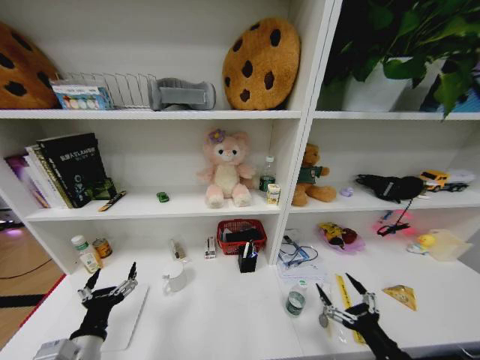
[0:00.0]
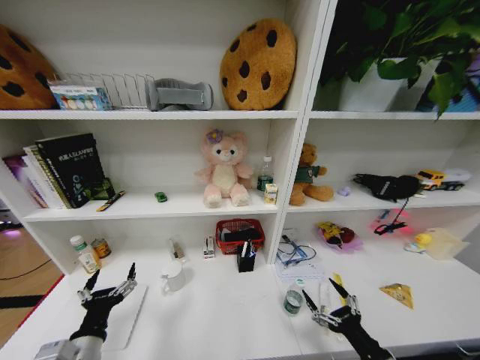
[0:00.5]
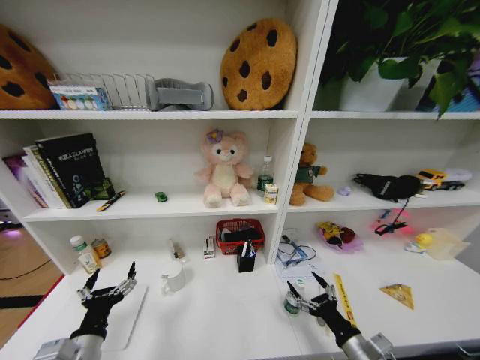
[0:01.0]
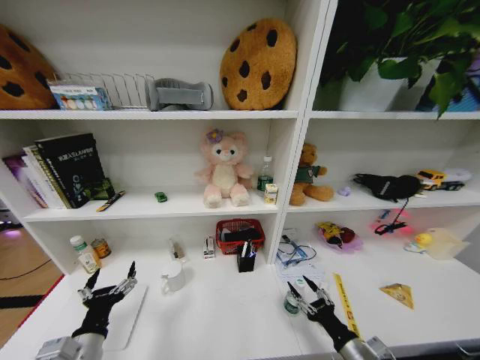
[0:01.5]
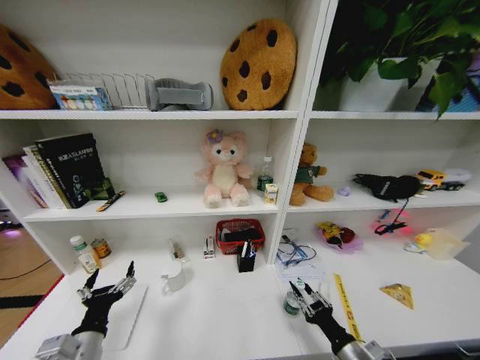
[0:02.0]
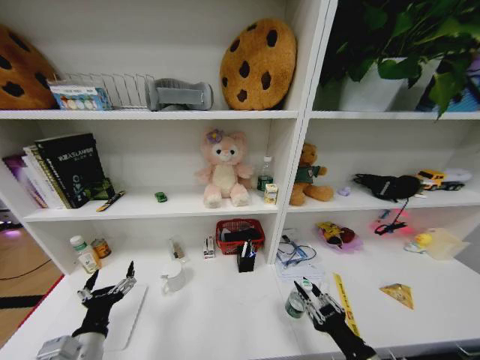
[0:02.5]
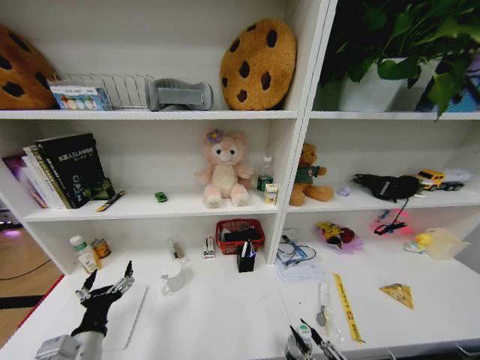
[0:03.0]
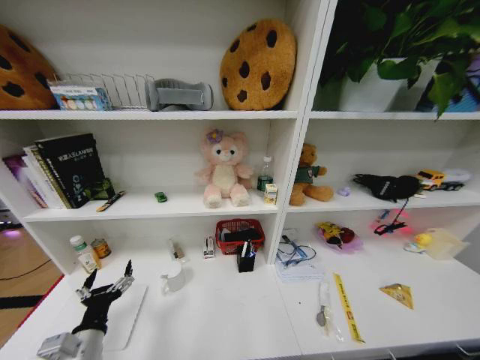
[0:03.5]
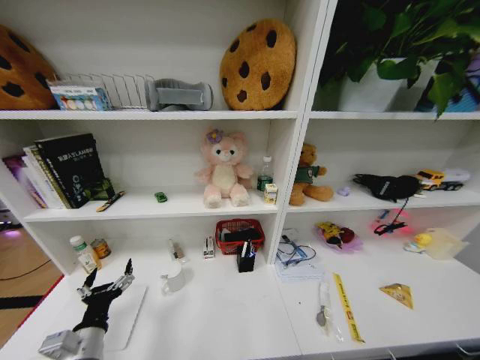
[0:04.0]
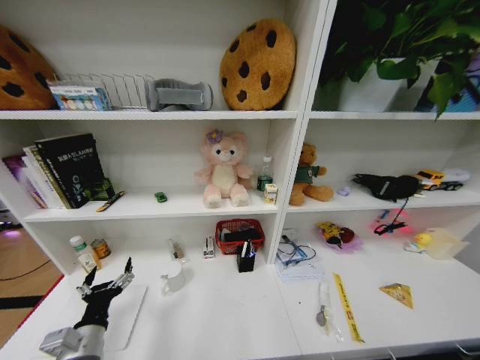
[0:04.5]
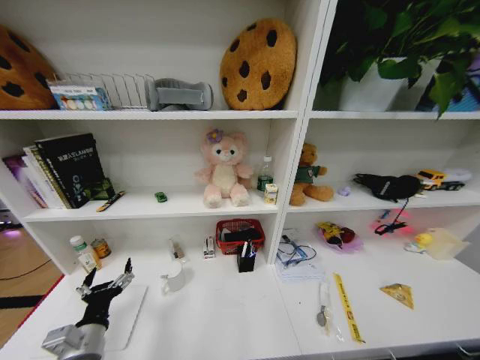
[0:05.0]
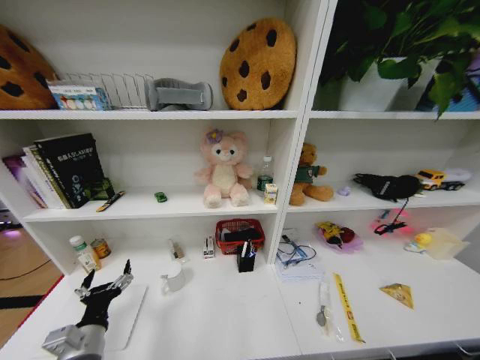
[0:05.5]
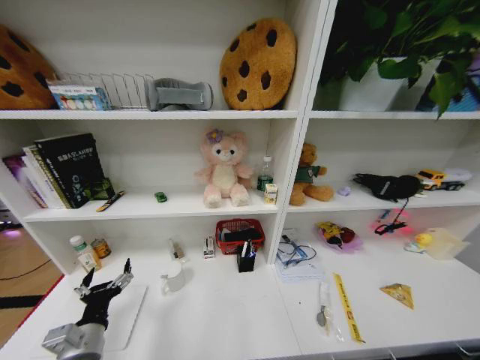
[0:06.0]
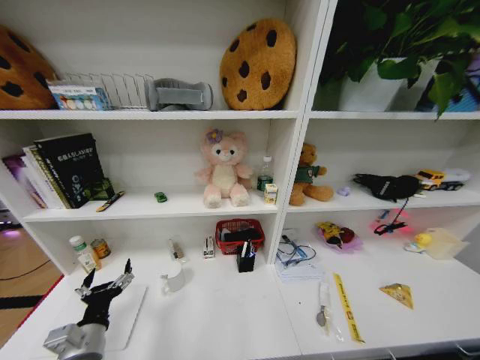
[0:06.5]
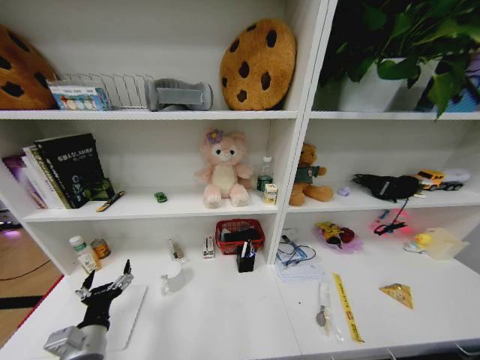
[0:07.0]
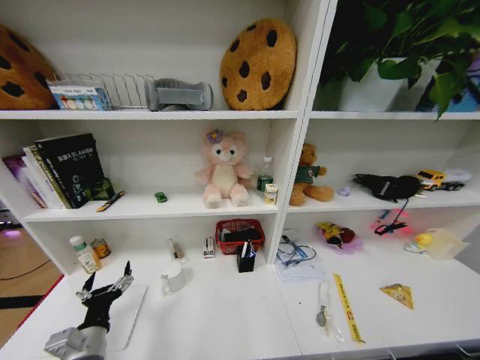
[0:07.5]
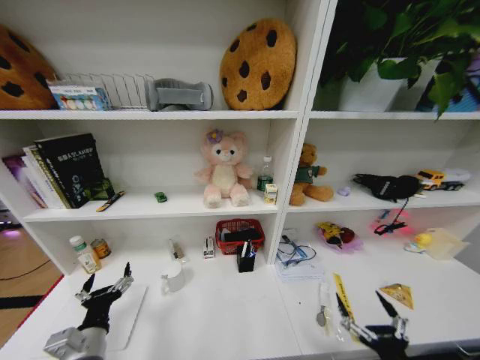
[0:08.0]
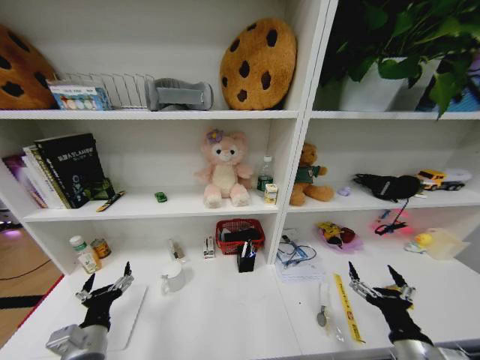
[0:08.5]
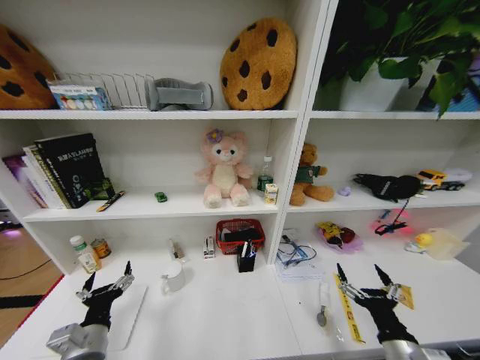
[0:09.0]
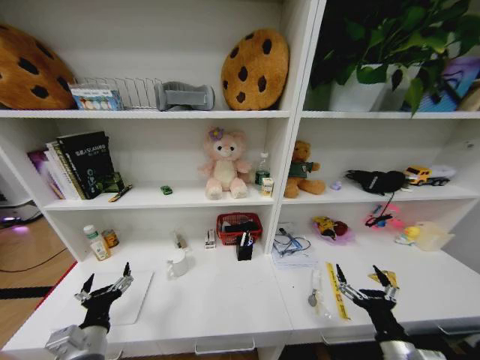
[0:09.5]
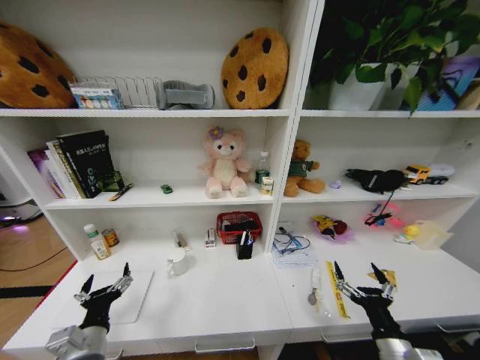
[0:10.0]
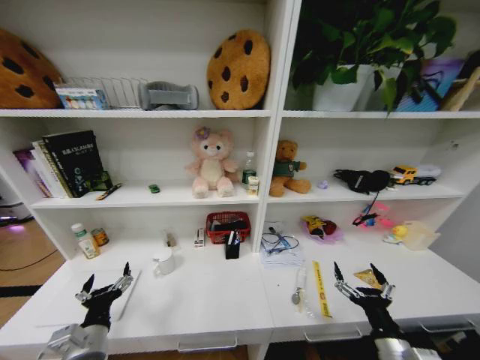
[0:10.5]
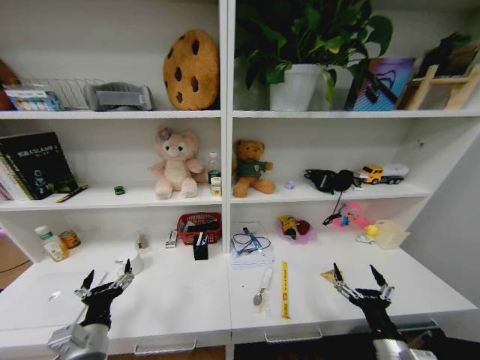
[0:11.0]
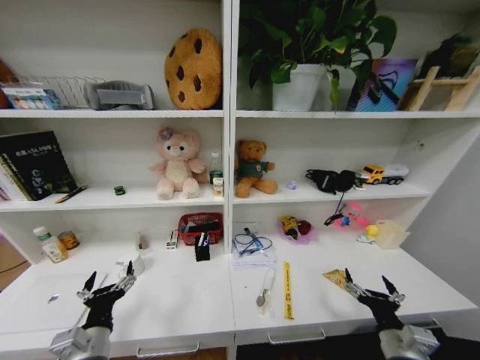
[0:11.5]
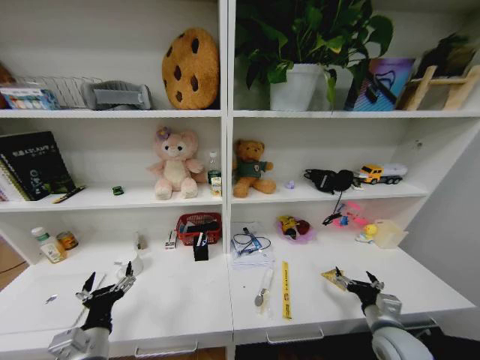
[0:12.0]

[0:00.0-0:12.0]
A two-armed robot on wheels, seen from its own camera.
Task of the whole recording: Organize the objects on the table.
0:00.0 to 0:02.0: The right gripper changes place by some 10 cm, and closes up.
0:02.0 to 0:04.0: The right gripper is displaced backward by about 25 cm.
0:06.0 to 0:08.0: The right gripper shifts approximately 30 cm upward, and opens.
0:08.0 to 0:10.0: The right gripper moves forward, approximately 10 cm.
0:10.0 to 0:12.0: The right gripper moves forward and to the right, about 10 cm.

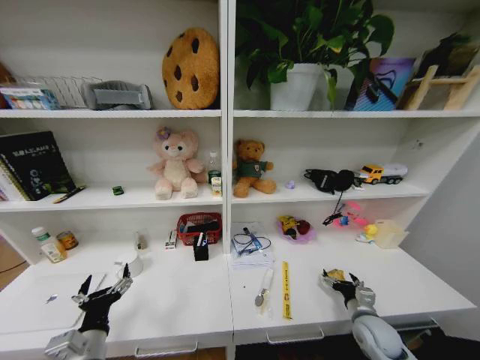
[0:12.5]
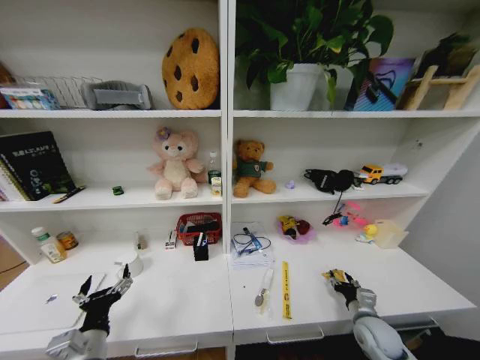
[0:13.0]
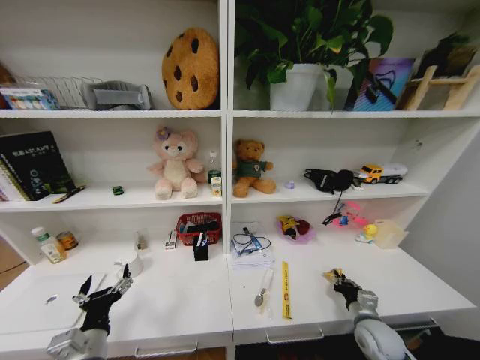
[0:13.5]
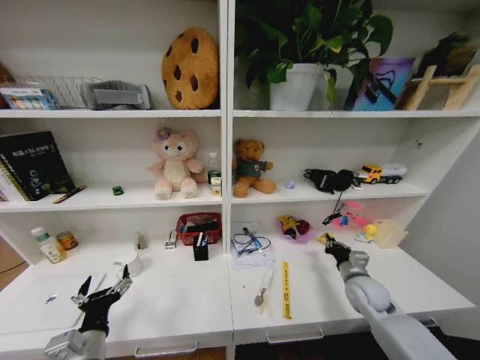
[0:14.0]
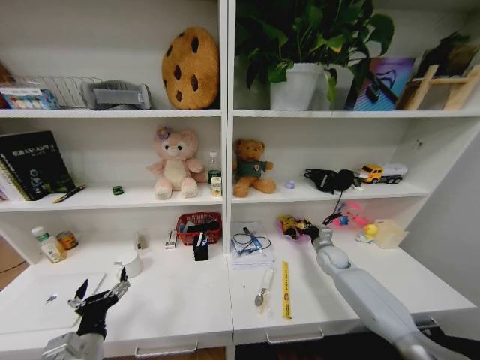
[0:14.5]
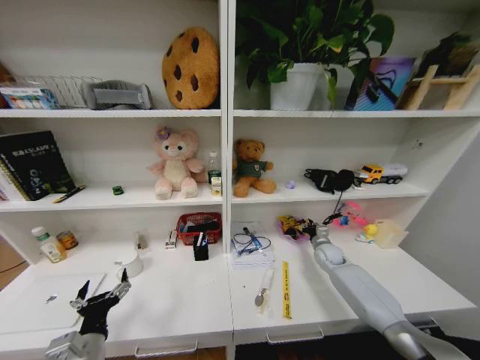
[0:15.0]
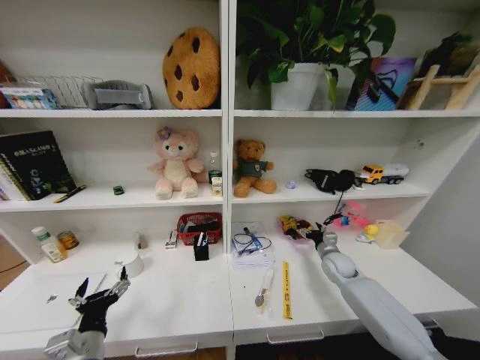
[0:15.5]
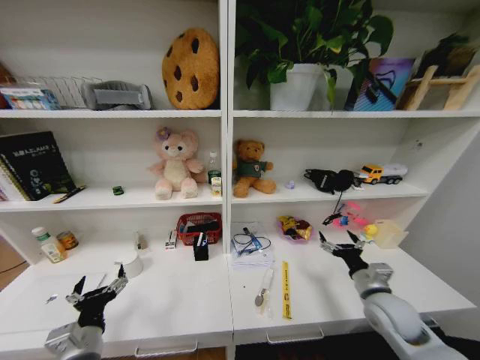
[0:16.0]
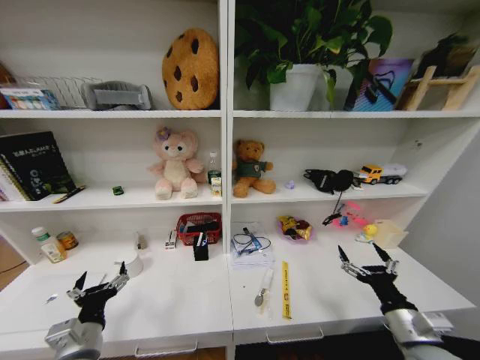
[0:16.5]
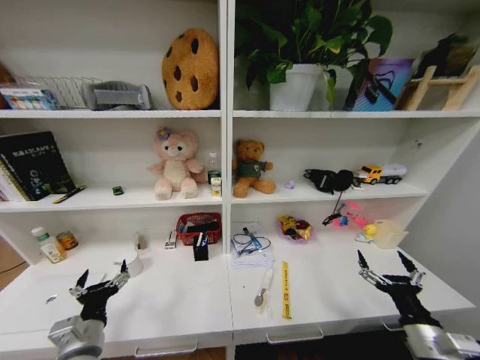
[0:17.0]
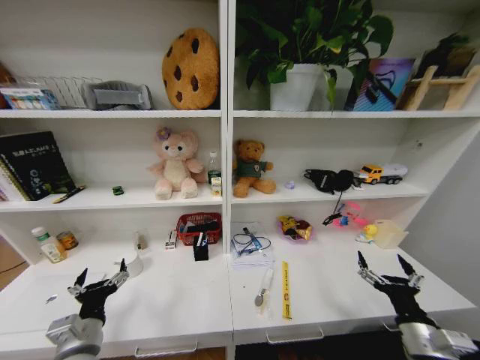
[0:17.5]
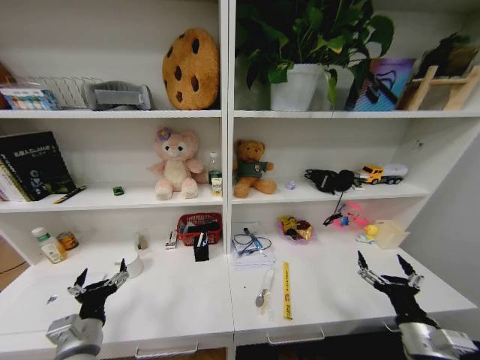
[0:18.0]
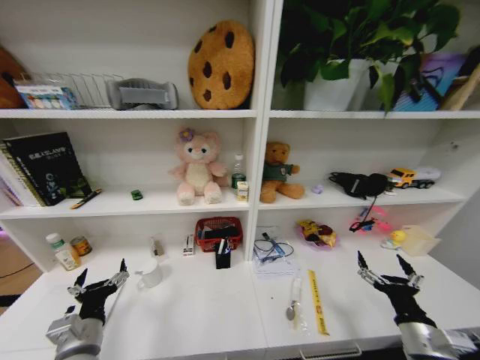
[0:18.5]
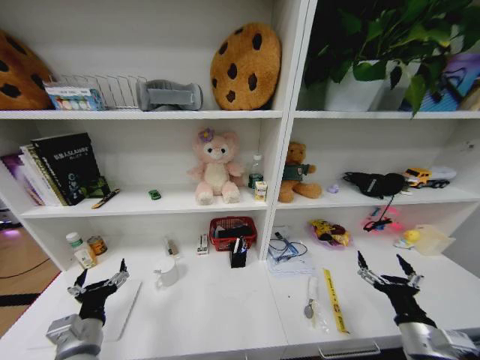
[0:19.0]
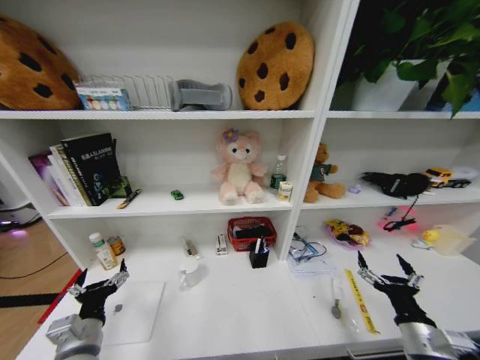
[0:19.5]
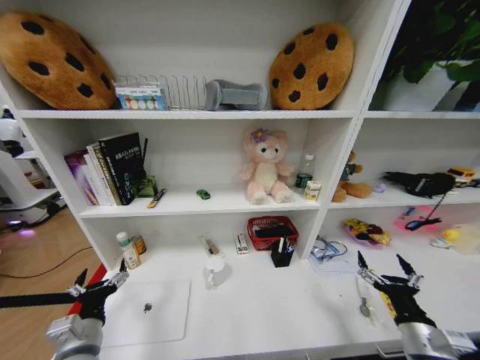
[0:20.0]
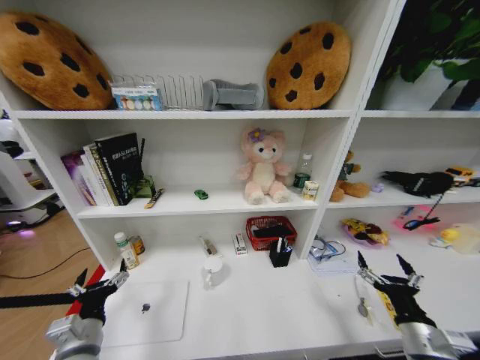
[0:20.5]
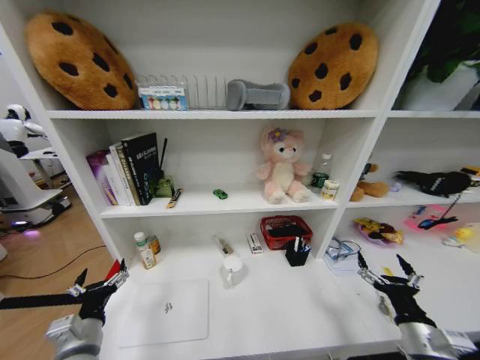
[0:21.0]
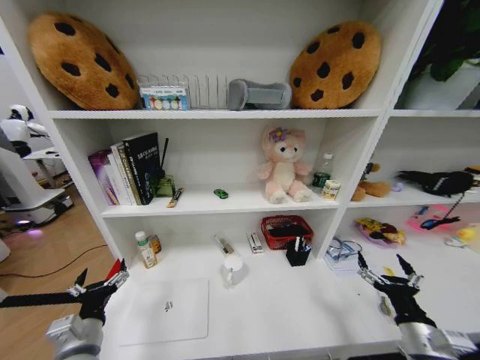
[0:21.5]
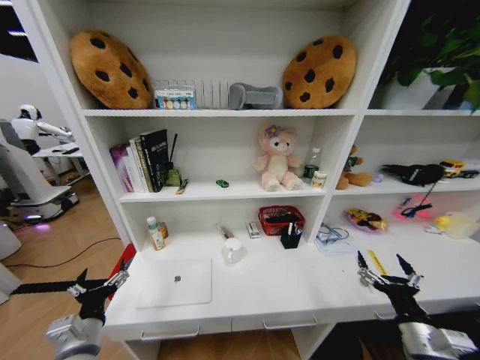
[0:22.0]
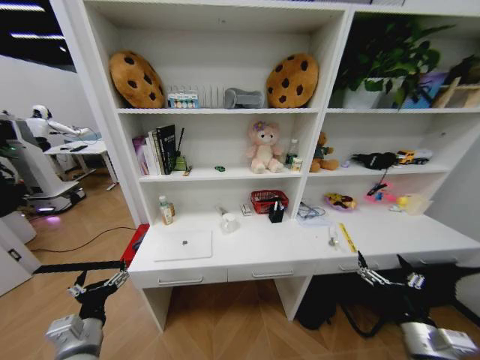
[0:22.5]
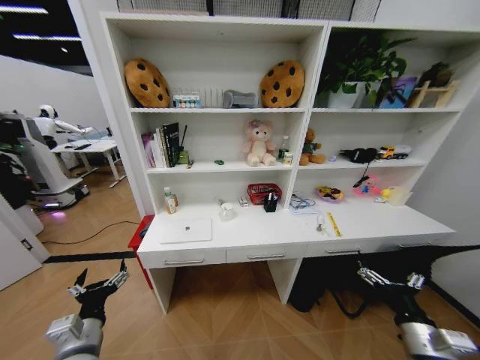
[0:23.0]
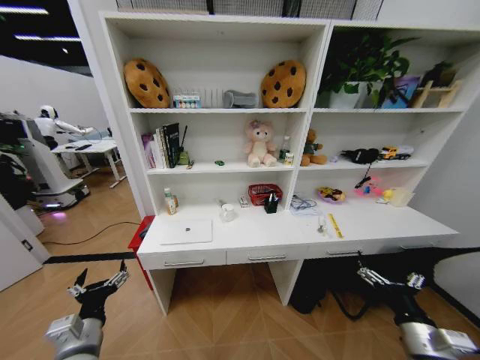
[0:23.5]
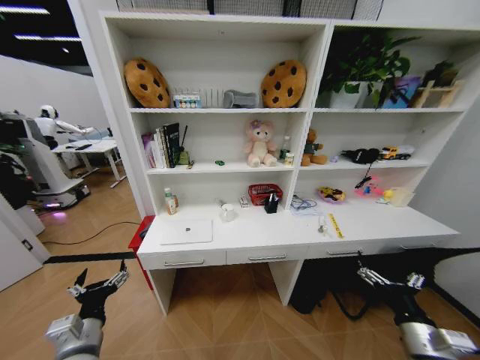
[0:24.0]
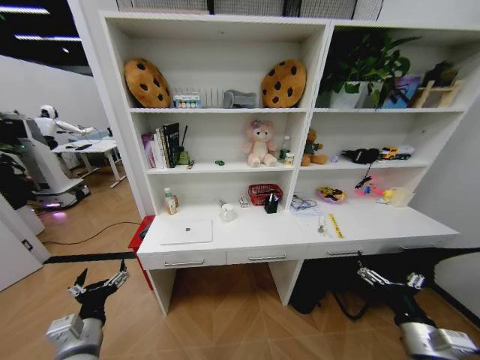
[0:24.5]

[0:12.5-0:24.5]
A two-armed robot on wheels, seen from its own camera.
Task of the whole recording: Organize the objects on the table.
0:12.5 to 0:14.5: The right gripper travels forward by roughly 20 cm, and closes.
0:14.5 to 0:16.5: The right gripper moves backward, some 30 cm, and opens up.
